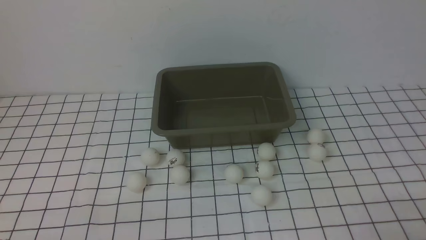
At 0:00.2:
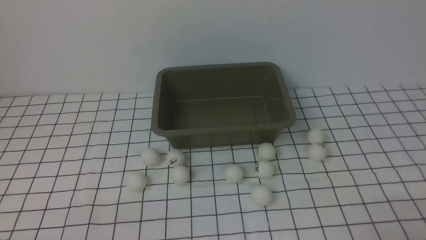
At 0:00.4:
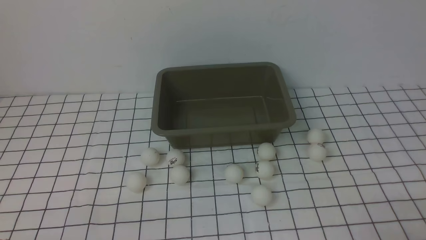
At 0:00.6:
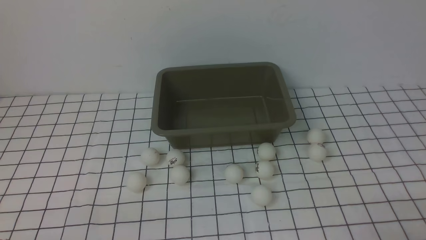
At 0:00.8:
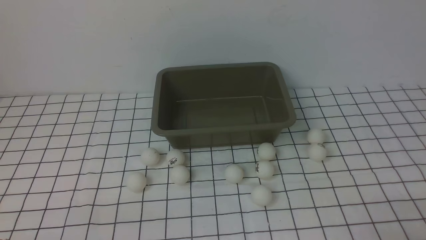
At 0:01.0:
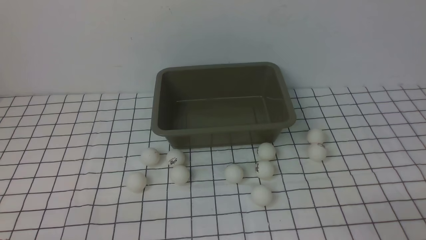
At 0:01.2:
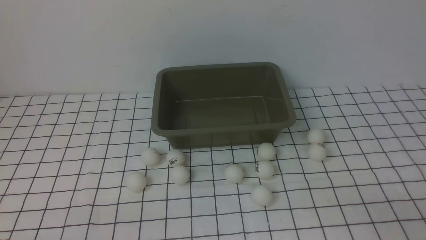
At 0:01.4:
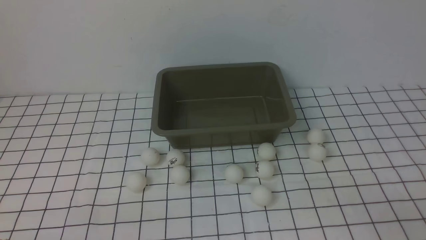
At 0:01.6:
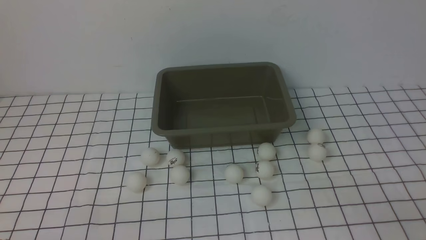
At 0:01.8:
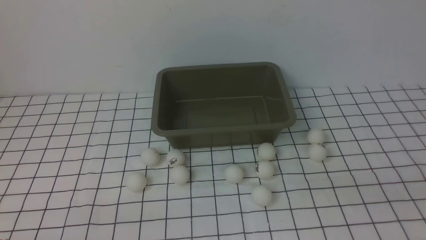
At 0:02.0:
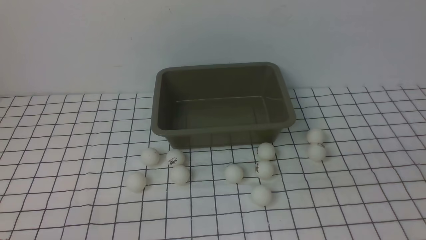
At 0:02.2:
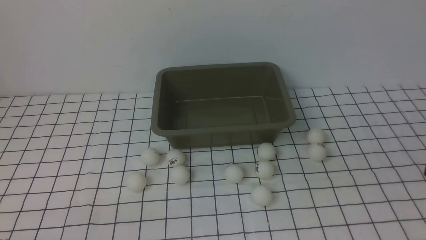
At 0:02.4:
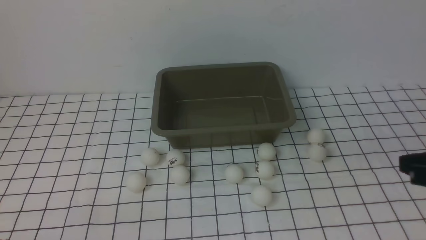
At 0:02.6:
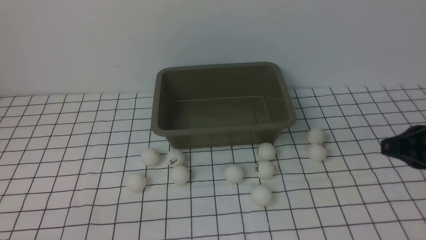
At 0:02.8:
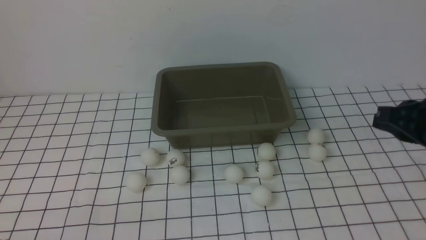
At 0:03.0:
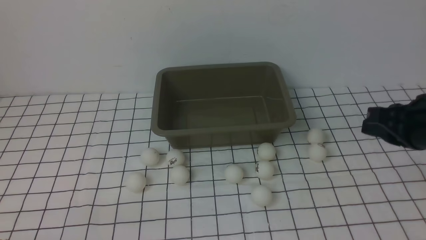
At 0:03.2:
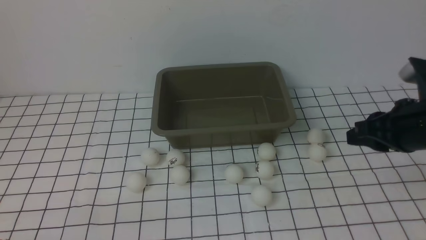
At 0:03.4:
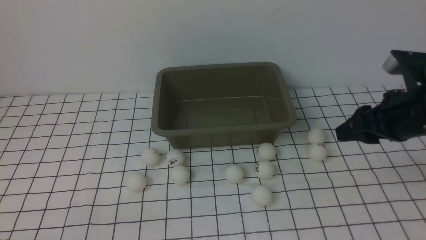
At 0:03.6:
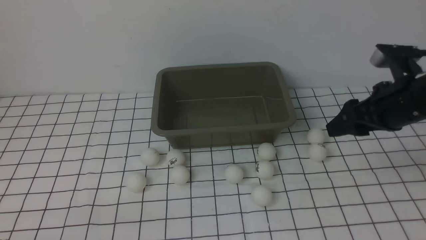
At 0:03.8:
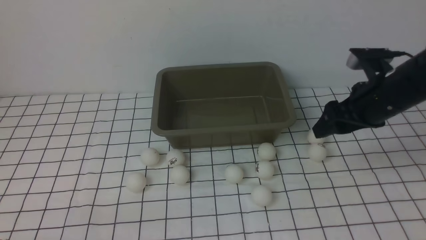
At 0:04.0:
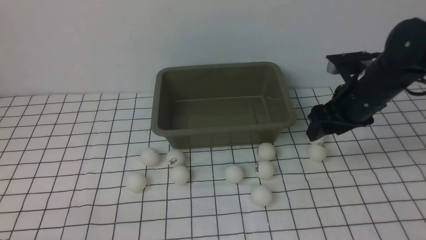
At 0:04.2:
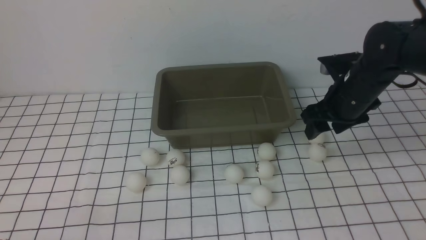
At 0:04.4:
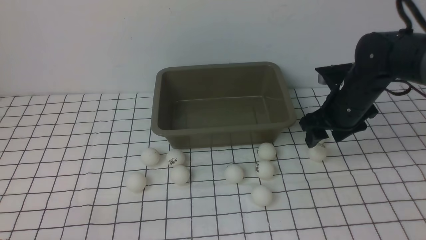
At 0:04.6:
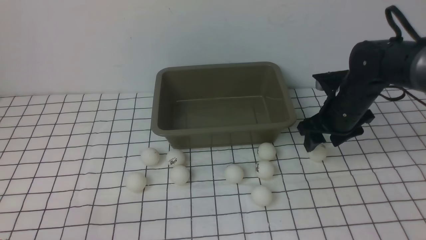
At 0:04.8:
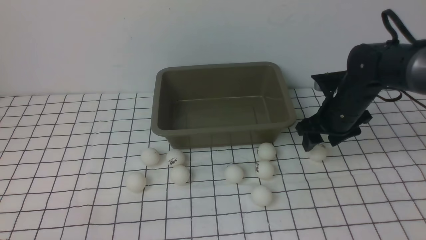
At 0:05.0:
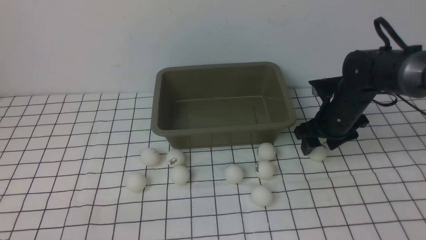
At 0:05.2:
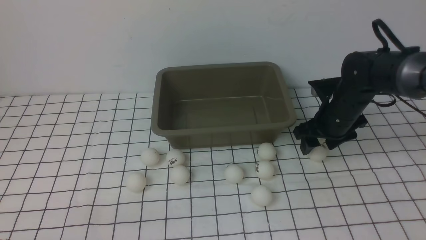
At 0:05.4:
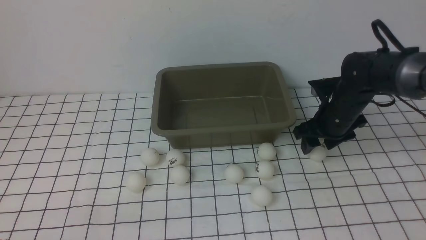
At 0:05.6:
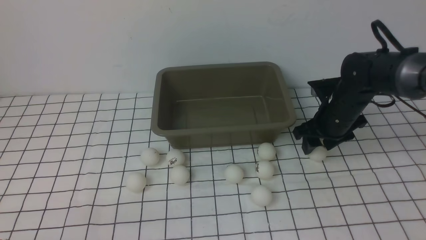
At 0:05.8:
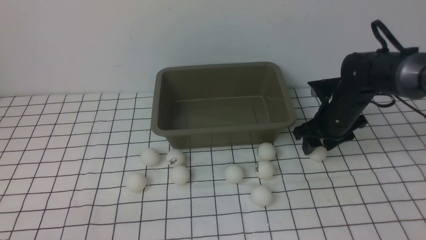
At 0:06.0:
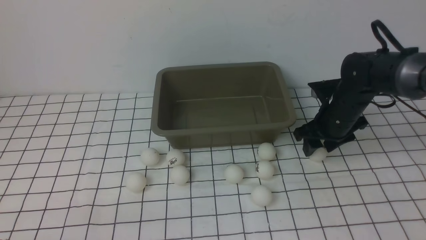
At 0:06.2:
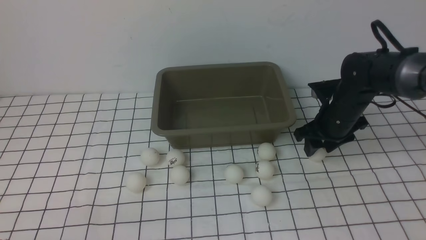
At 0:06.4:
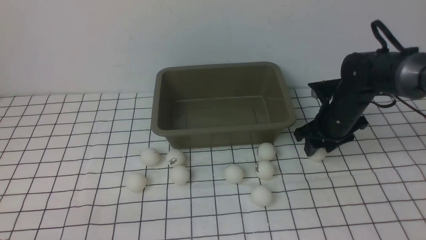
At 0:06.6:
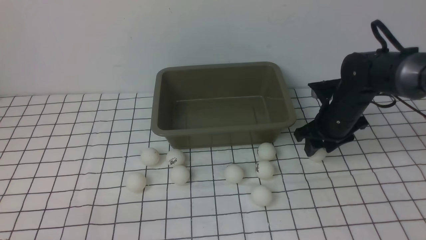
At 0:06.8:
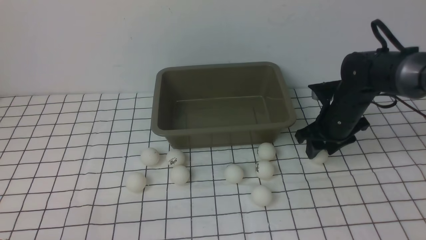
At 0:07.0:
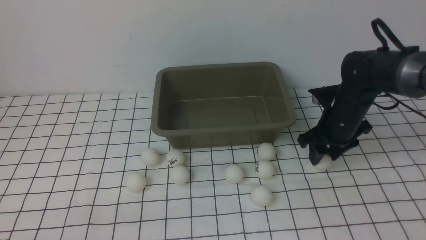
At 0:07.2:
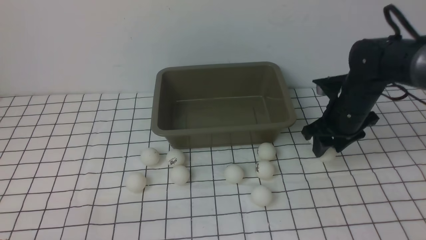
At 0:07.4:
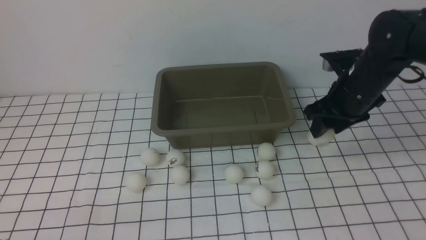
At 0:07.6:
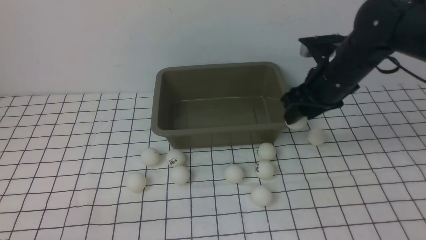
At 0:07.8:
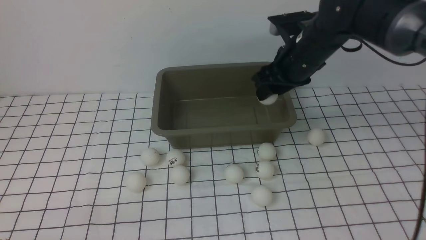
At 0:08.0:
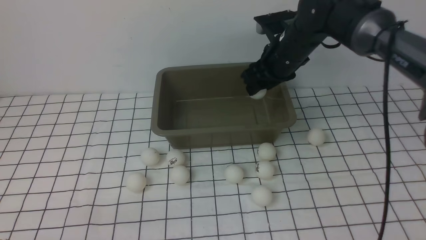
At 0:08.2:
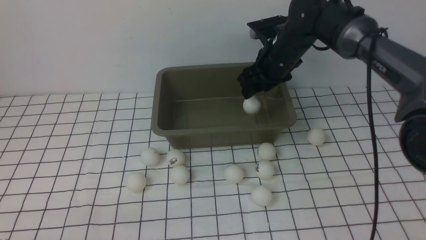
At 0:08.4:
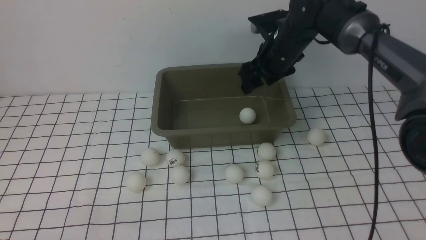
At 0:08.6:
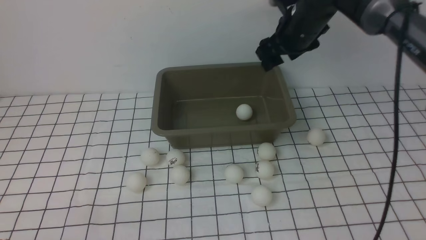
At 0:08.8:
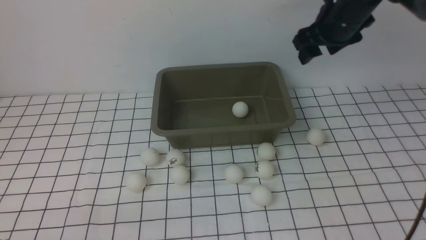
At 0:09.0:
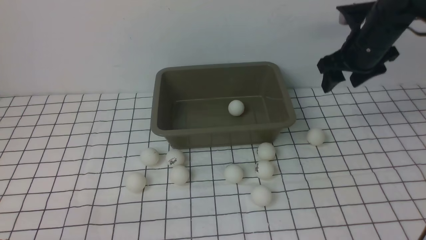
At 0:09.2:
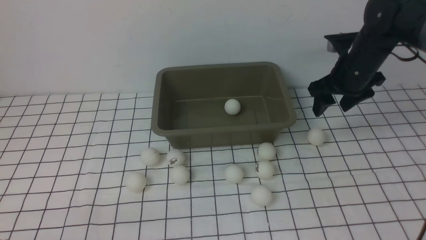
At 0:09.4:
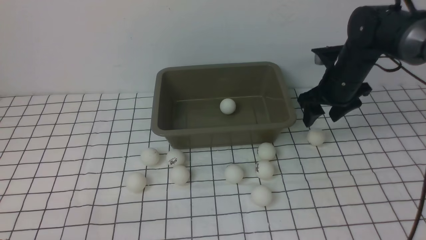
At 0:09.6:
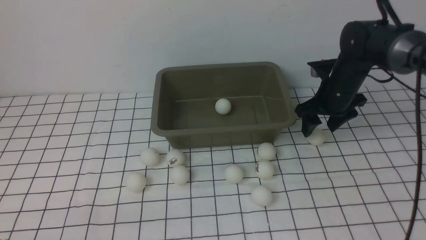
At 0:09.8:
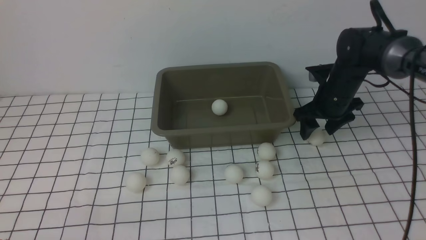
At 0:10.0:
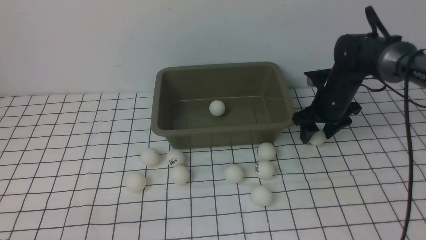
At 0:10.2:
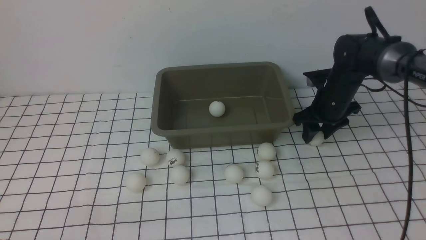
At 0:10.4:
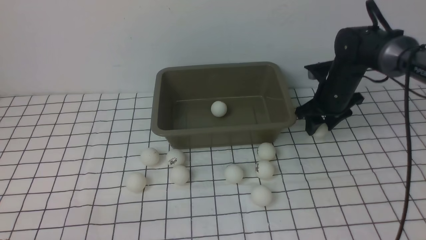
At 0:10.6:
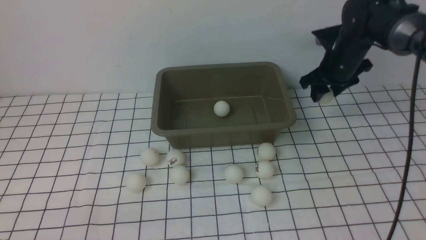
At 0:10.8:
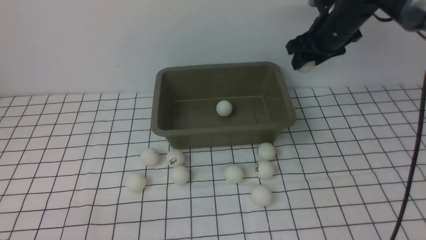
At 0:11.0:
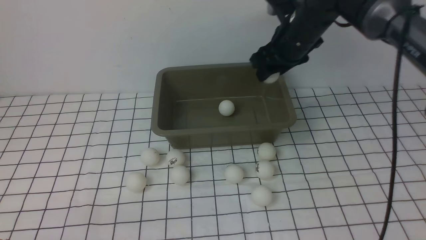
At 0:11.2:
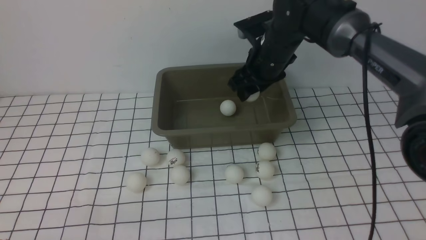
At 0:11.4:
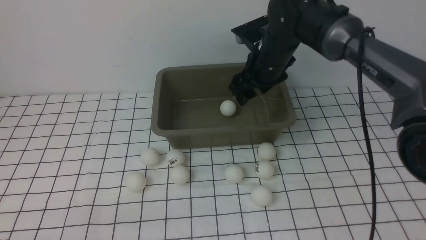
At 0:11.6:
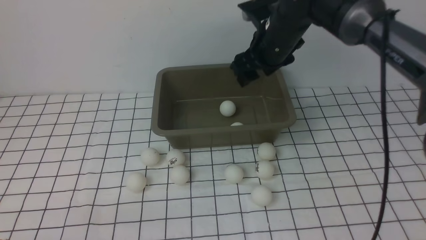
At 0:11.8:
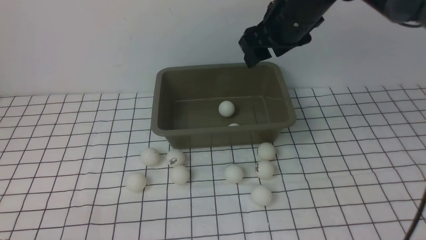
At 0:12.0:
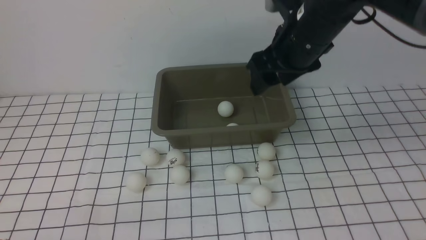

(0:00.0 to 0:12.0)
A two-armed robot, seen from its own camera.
Step, 0:00.0 - 0:07.4: use the right arm to clamp the table tennis ball closest to it.
Step, 0:07.6 - 0:08.4: use the right arm to put the table tennis ball into the box.
Step, 0:08.6 - 0:10.4: use the right arm to clamp the table tennis ball closest to it.
Step, 0:10.8 - 0:11.4: use the right arm to put the table tennis ball into the box.
0:01.6 - 0:03.0: The right gripper shifts about 20 cm forward.
0:03.0 - 0:04.4: The right gripper moves forward and downward, approximately 15 cm, and opens up.
0:04.4 - 0:06.0: The grippers stay close to where they were, moving slightly.
0:06.0 - 0:07.6: The right gripper moves upward, roughly 10 cm.
0:07.6 - 0:09.0: The right gripper shifts approximately 5 cm forward.
0:09.0 - 0:10.4: The right gripper moves downward, some 10 cm.
0:10.4 - 0:12.0: The right gripper shifts approximately 20 cm upward, to the left and backward.

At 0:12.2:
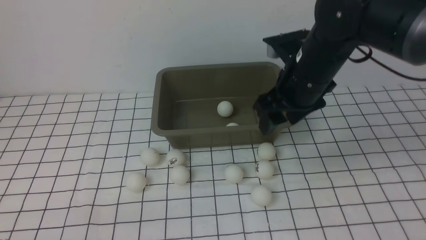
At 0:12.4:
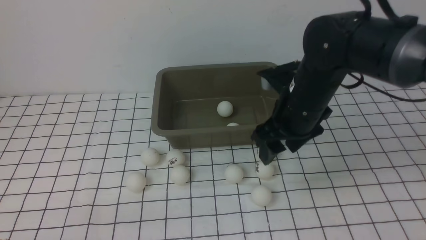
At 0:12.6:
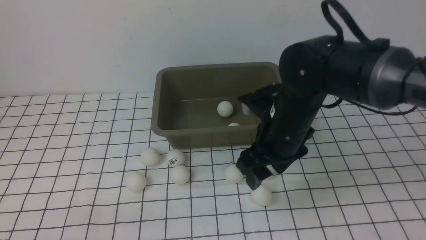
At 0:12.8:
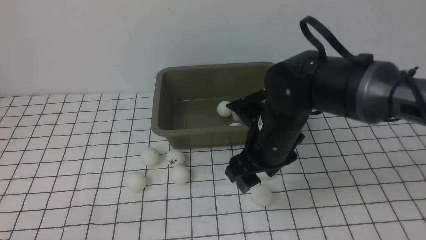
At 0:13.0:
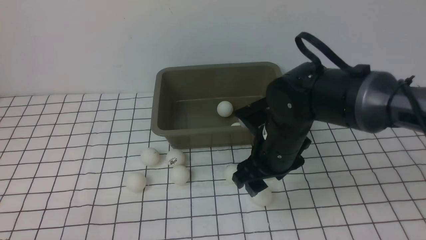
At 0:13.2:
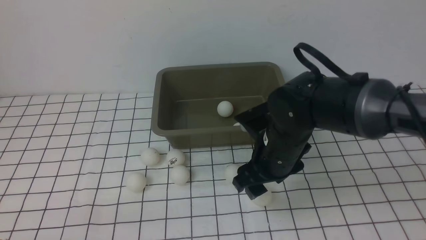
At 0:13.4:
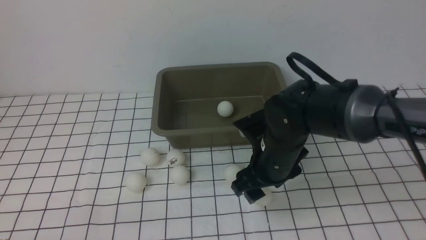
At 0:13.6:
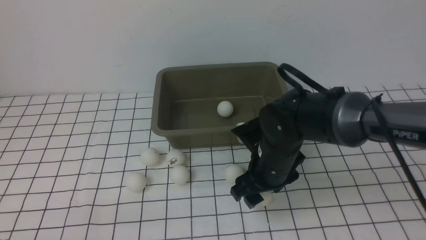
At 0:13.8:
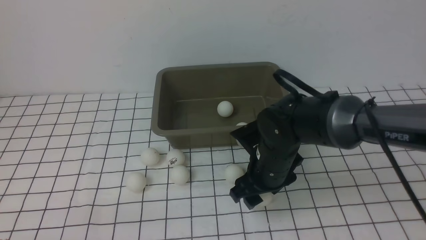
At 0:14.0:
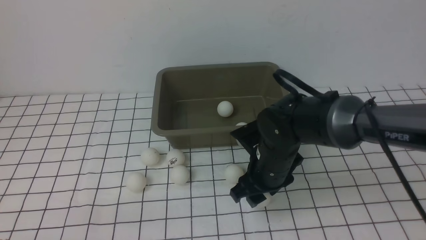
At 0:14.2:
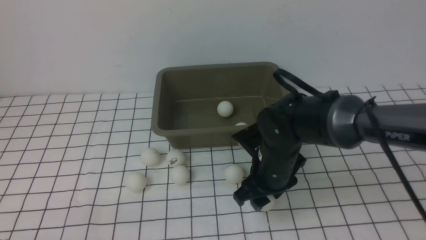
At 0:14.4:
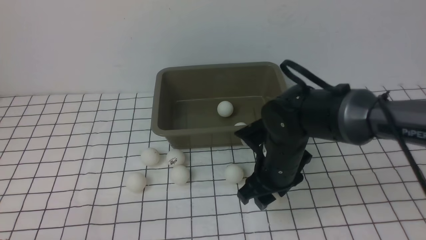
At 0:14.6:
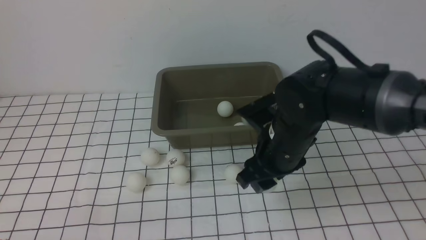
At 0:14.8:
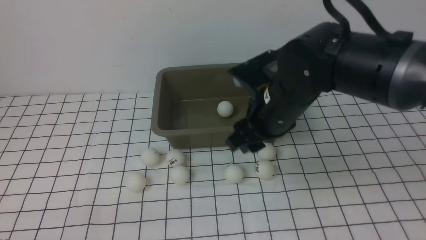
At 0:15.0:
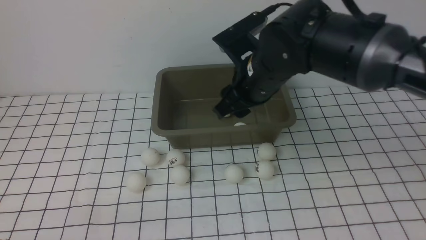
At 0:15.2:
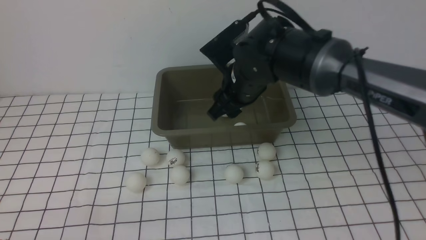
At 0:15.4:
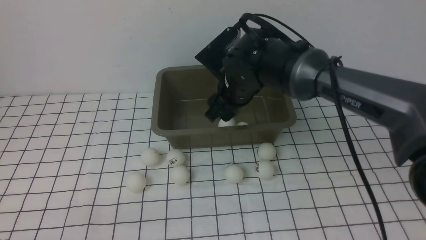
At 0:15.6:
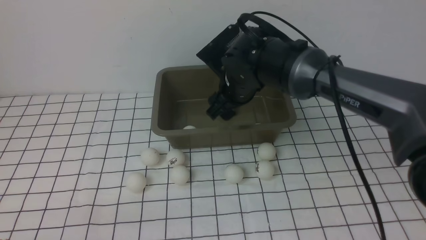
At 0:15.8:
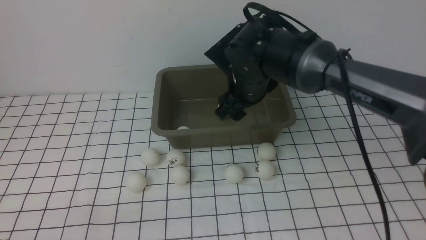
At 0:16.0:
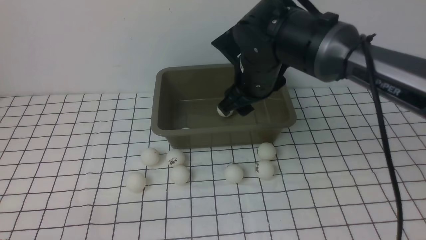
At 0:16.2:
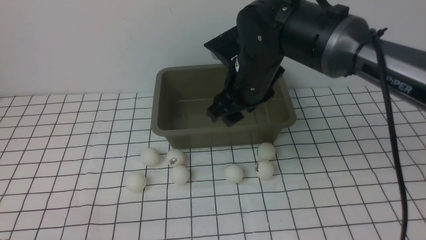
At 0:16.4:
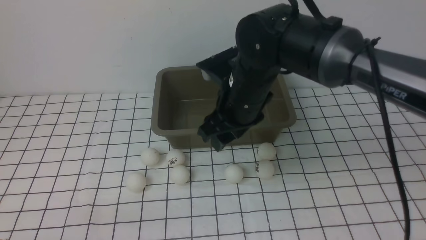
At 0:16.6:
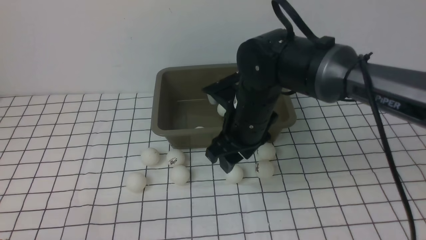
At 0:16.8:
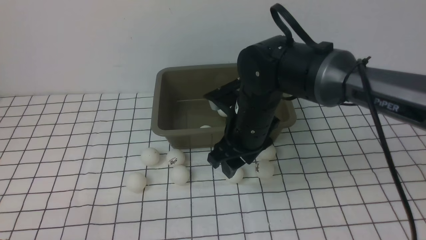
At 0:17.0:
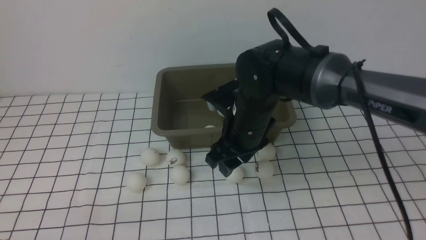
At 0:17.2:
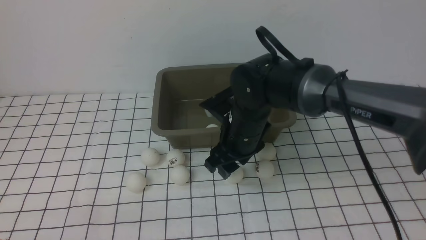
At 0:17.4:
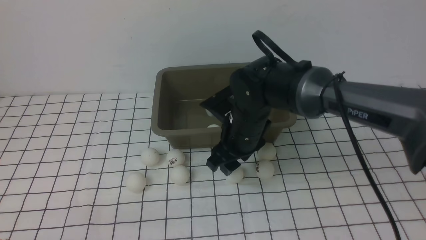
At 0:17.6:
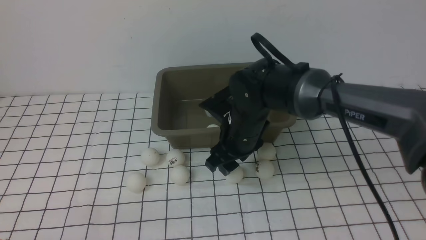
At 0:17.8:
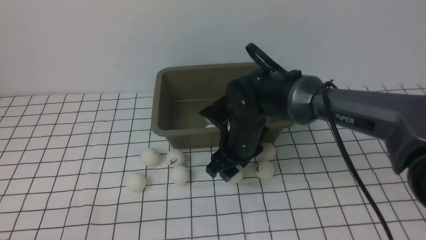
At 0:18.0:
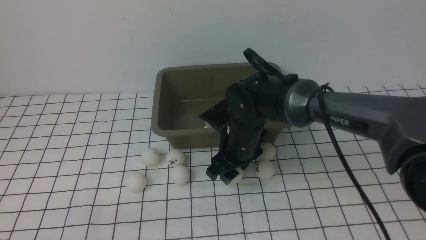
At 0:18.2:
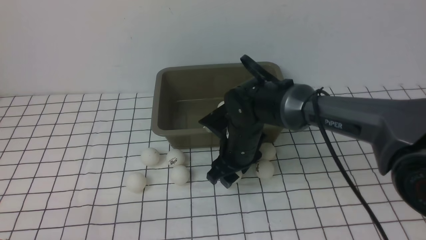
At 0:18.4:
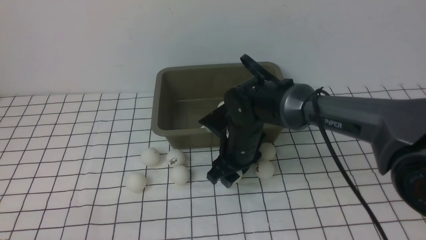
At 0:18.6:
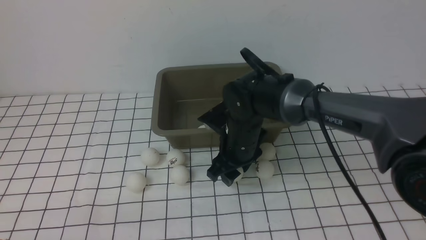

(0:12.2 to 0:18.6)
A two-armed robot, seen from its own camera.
Step, 0:12.2 - 0:14.4: use the right arm to clamp the table tennis ball closest to it.
Step, 0:14.6 - 0:15.6: use the right arm to put the table tennis ball into the box.
0:12.2 - 0:13.8: The right gripper travels downward by about 10 cm.
0:13.8 - 0:15.4: The right gripper travels forward and upward by approximately 10 cm.
0:15.4 - 0:17.0: The right gripper travels backward by roughly 5 cm.
0:17.0 - 0:18.6: The right gripper moves downward, about 5 cm.
